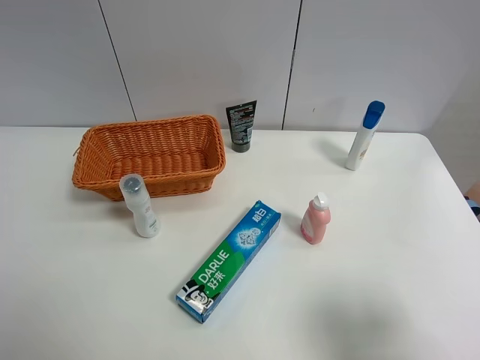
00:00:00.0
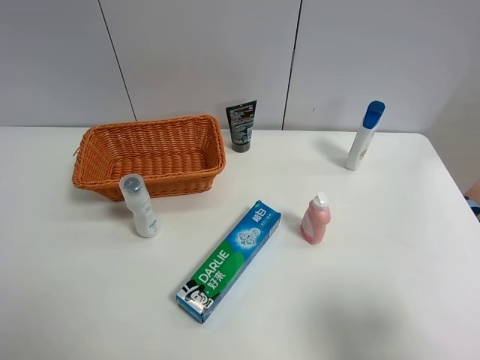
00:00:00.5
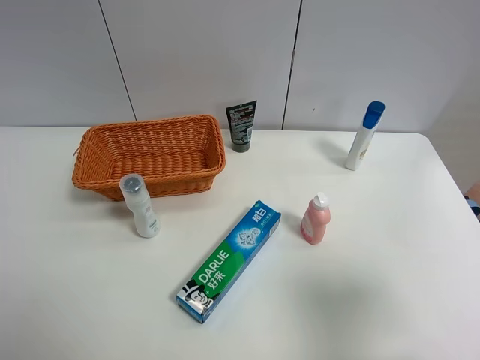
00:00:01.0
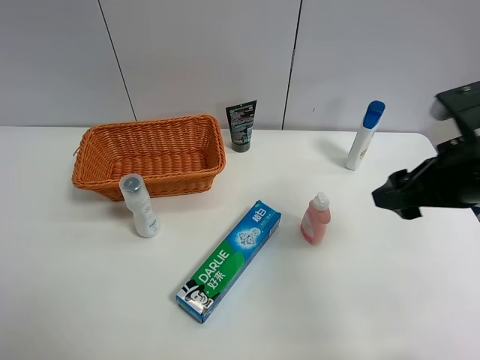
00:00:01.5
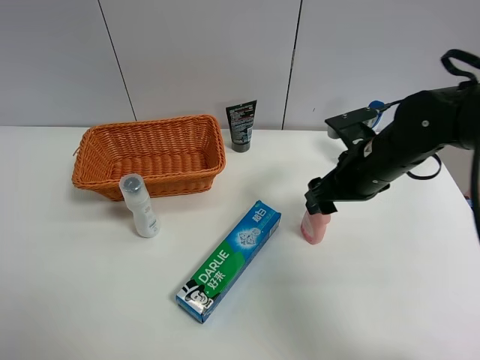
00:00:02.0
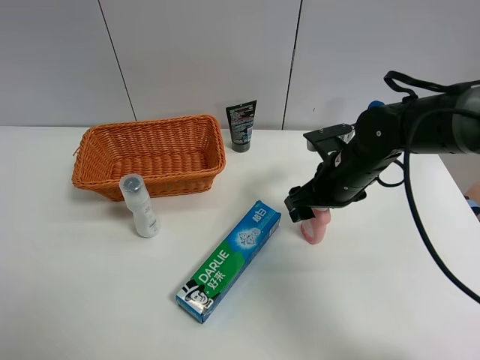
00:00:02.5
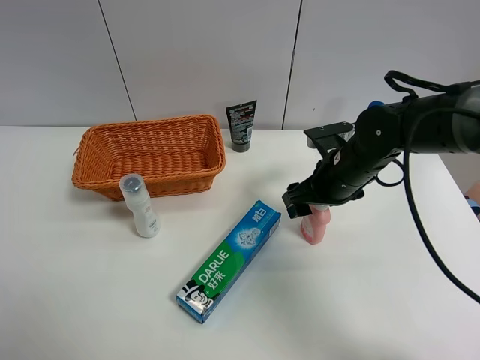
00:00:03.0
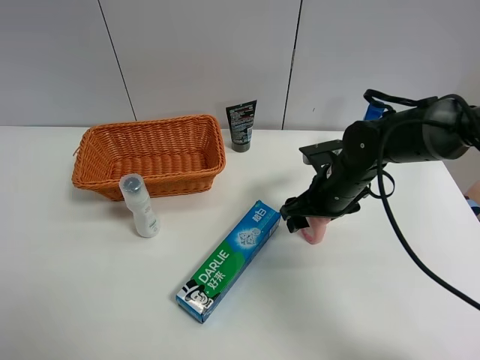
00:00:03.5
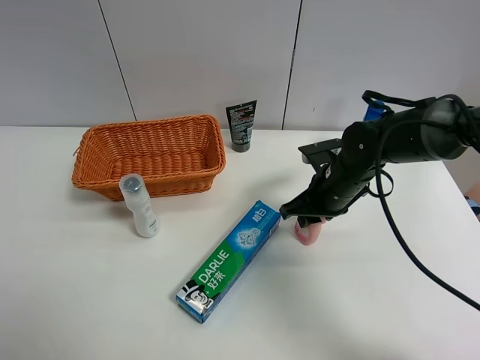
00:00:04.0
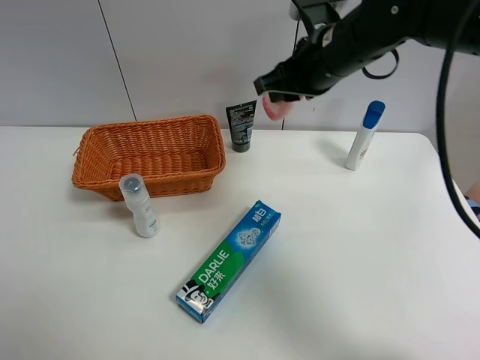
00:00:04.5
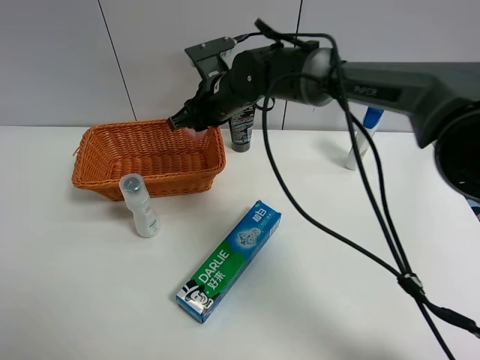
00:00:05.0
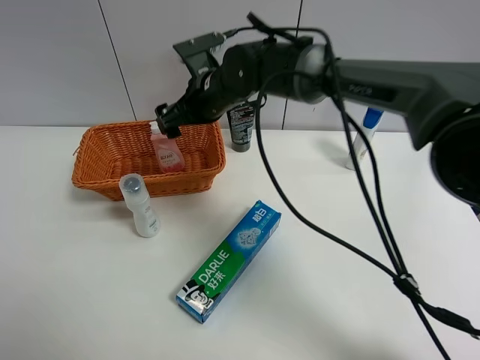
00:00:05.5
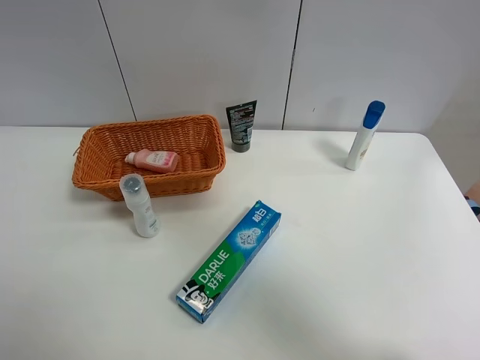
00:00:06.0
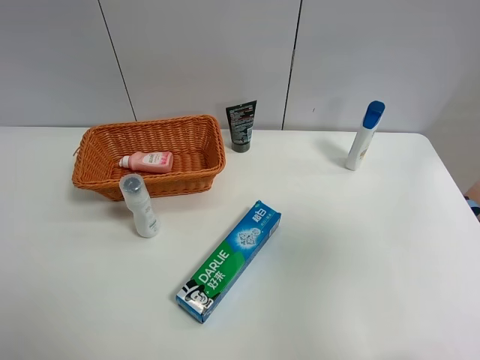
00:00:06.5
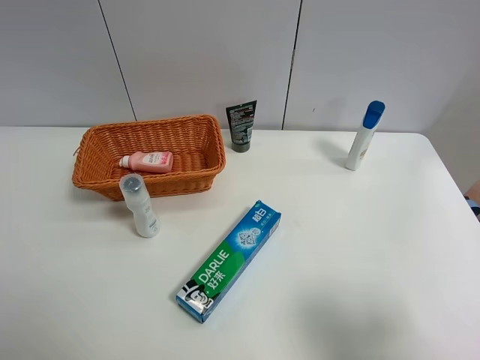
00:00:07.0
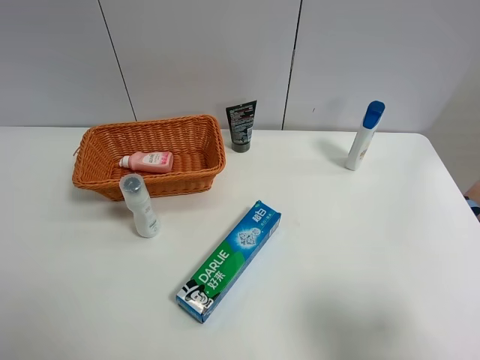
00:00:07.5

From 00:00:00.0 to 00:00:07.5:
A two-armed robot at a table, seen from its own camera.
Task of the whole recording: Place the object closest to the toothpaste in the basket.
Step, from 00:00:00.0 to 00:00:03.5: Grasp the pink laundry detergent with right gripper.
Step, from 00:00:04.0 to 00:00:05.5: Place the pink laundry detergent in the basket with right gripper.
From 00:00:00.0 to 00:00:02.0: The right gripper shifts some 30 cm forward and to the left.
From 00:00:02.0 to 00:00:04.0: The right gripper travels downward by some 5 cm, and closes its fingers.
From 00:00:04.0 to 00:00:05.5: The right gripper is displaced to the left, upward and forward by about 20 cm, and opens.
From 00:00:05.5 to 00:00:07.5: The right gripper shifts some 50 cm backward and to the right.
